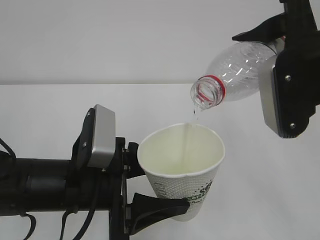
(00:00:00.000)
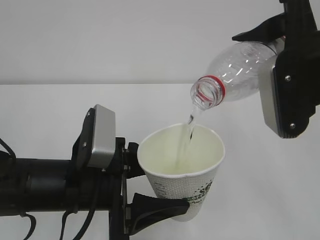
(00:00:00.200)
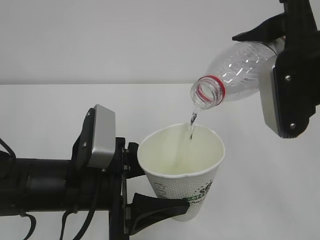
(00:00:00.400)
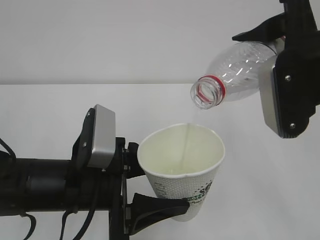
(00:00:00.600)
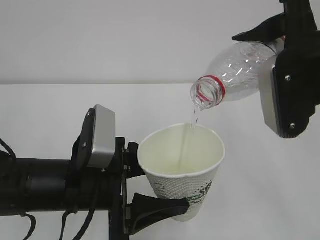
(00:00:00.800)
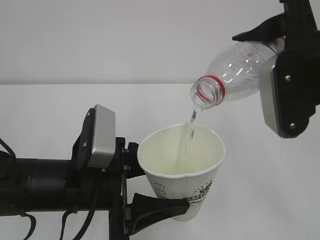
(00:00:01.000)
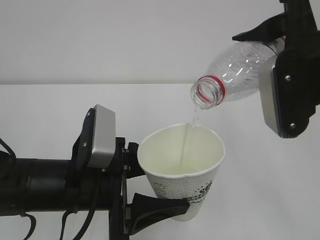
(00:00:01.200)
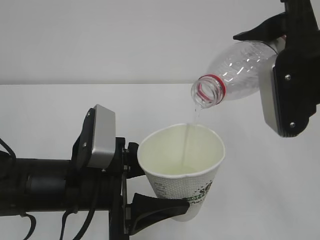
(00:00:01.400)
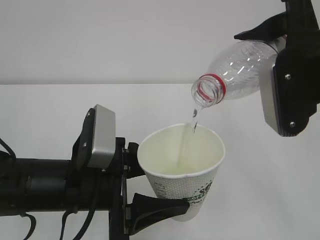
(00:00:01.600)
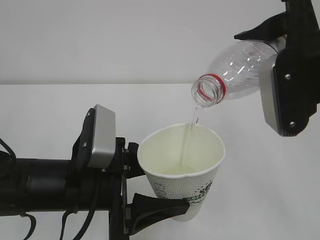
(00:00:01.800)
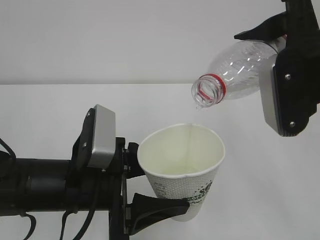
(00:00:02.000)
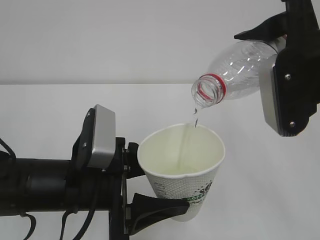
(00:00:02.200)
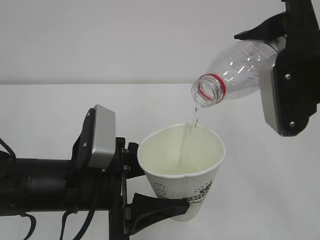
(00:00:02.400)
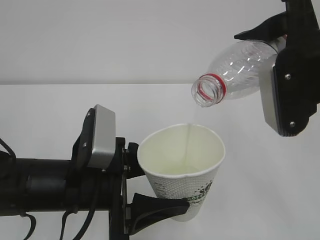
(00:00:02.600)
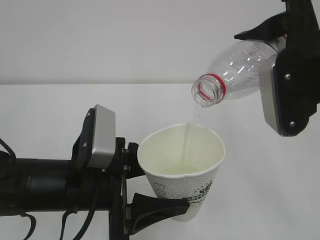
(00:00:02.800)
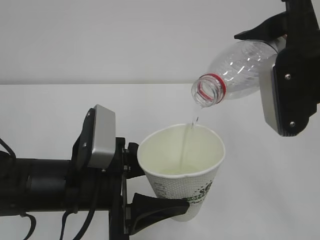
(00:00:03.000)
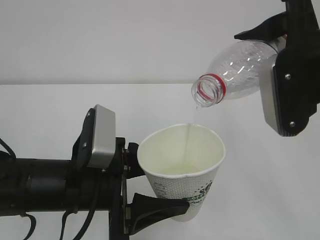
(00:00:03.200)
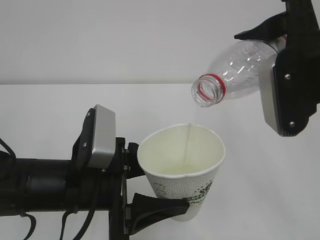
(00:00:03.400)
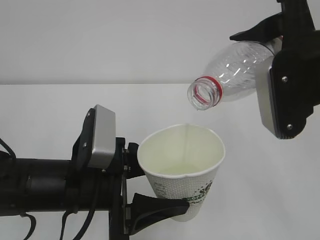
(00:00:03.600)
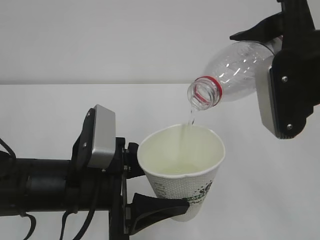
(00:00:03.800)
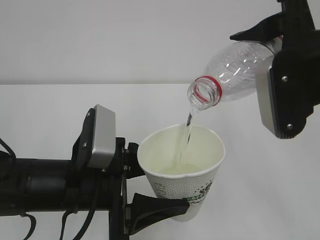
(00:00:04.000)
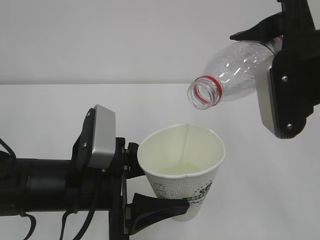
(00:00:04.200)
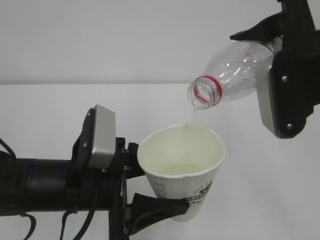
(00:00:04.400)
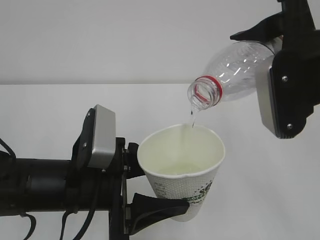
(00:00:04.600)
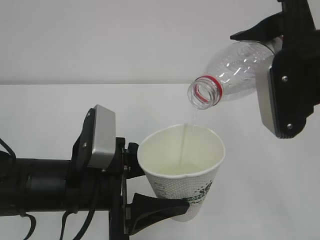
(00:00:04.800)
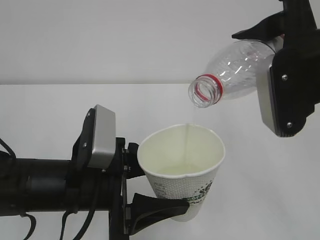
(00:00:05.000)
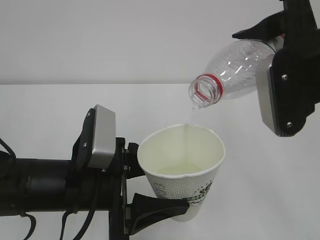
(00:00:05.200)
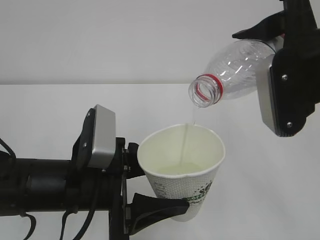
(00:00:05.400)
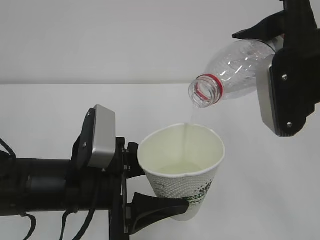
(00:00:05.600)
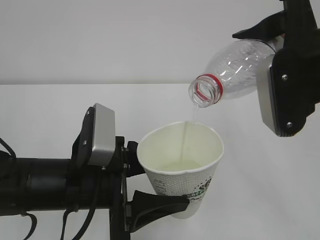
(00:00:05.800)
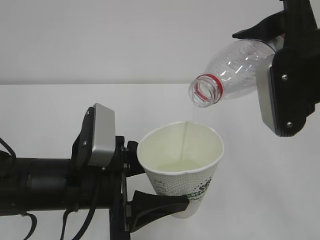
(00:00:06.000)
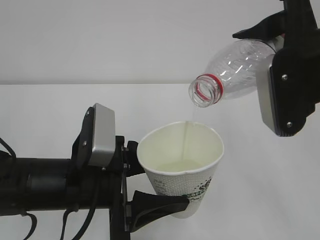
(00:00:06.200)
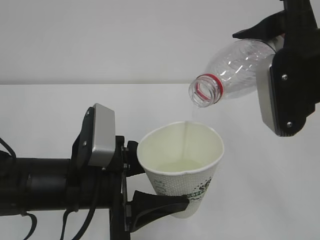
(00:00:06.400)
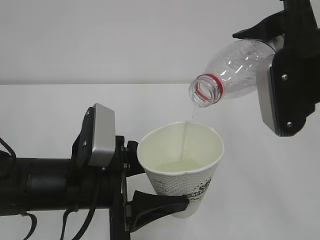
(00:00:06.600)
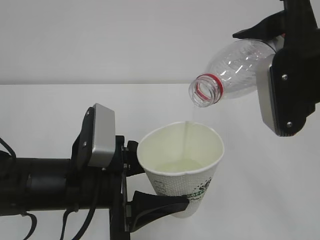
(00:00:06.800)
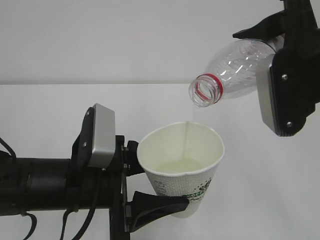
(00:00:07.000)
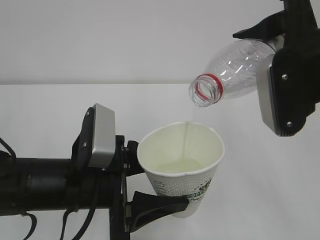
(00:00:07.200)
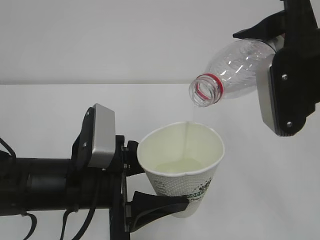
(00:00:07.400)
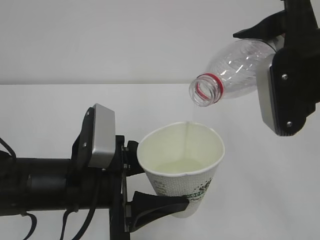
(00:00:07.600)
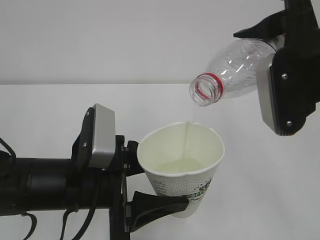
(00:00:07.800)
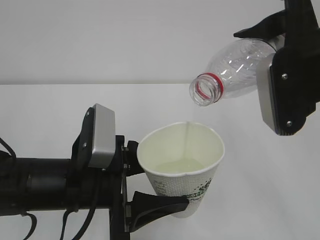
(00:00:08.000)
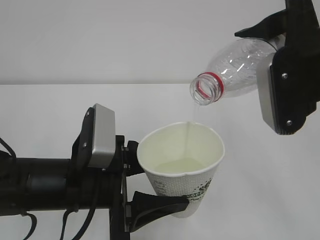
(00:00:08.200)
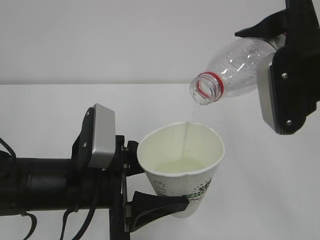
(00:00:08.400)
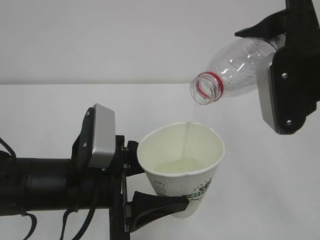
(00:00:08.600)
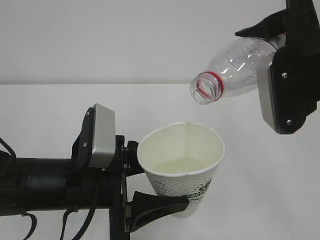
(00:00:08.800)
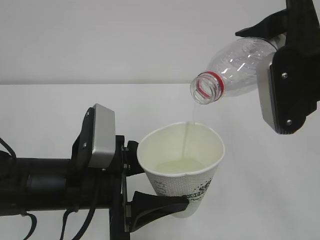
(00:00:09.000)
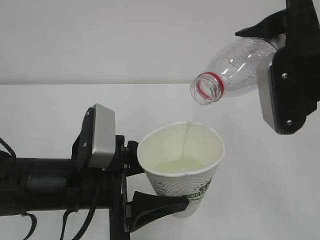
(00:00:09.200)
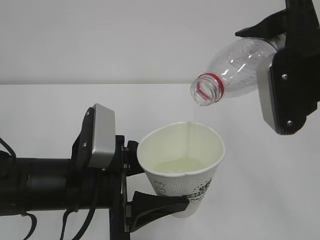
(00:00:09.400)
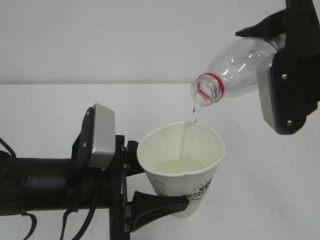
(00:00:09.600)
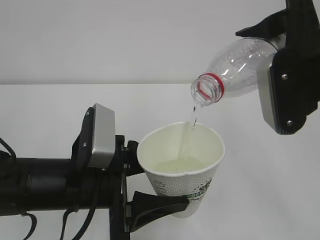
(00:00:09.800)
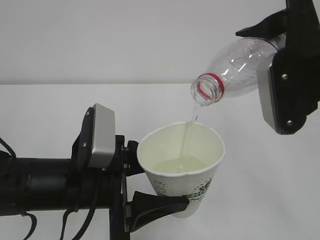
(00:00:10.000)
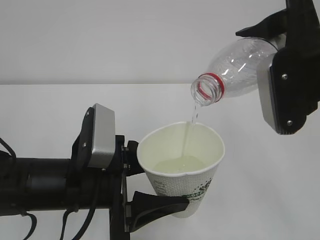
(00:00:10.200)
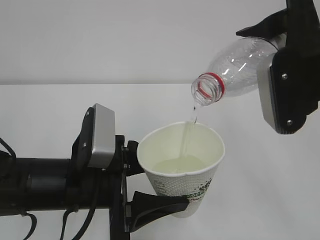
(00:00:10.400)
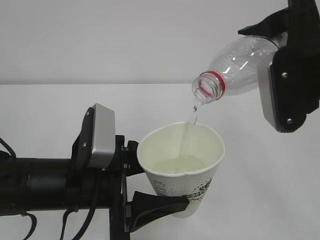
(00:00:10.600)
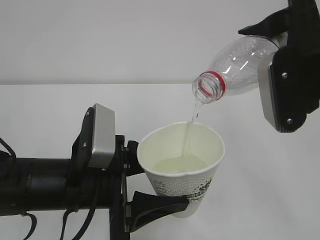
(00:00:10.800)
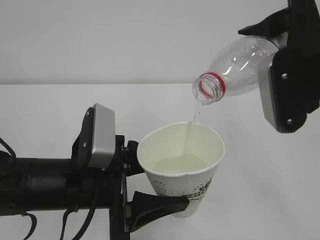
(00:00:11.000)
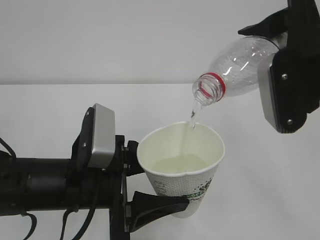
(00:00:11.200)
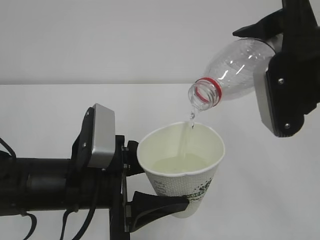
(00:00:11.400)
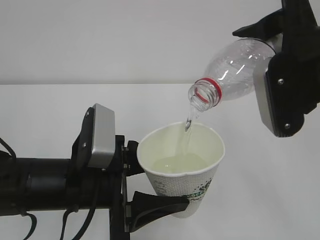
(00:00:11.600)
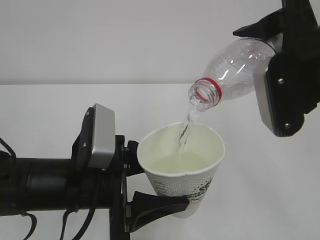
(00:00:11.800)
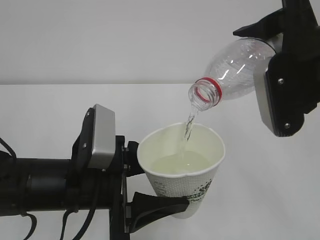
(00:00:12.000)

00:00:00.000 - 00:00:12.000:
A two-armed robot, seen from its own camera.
00:00:00.000 - 00:00:10.400: Both grippers stay about where they are.
00:00:10.400 - 00:00:12.000: Both grippers stay put.

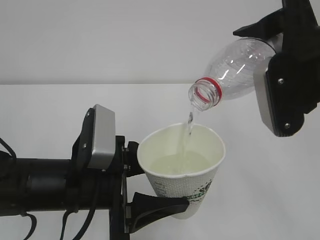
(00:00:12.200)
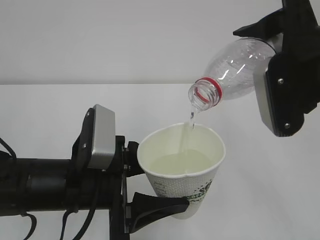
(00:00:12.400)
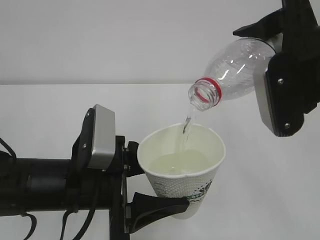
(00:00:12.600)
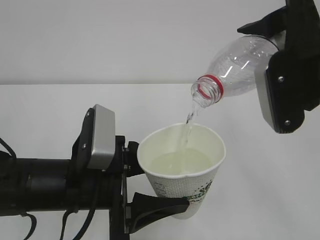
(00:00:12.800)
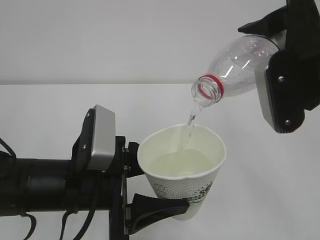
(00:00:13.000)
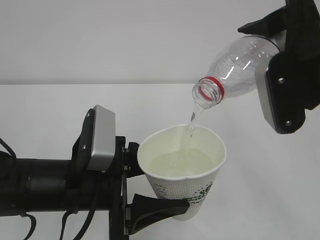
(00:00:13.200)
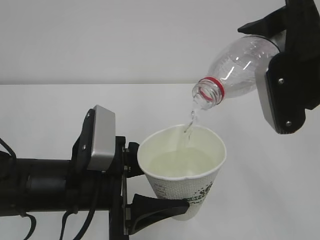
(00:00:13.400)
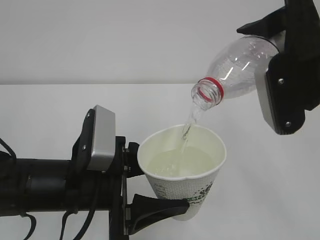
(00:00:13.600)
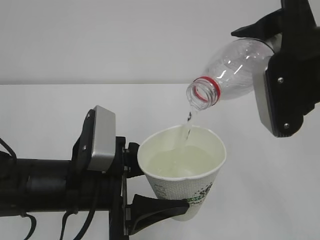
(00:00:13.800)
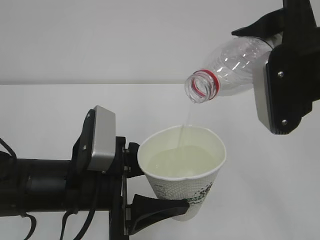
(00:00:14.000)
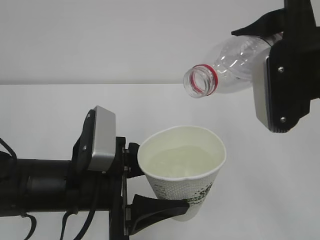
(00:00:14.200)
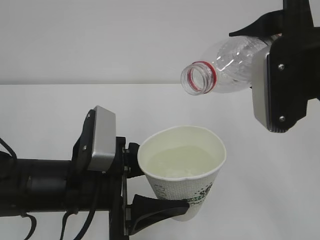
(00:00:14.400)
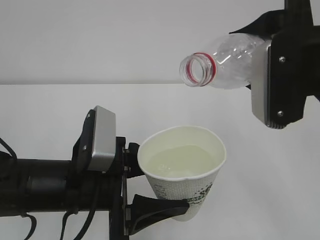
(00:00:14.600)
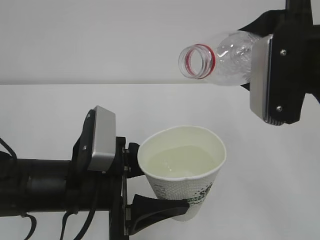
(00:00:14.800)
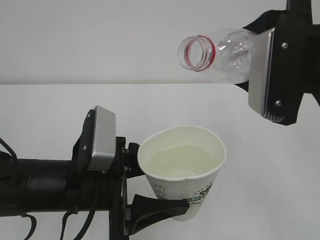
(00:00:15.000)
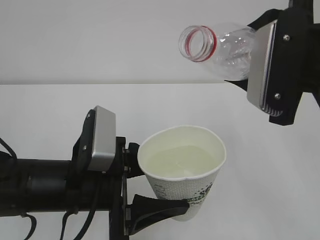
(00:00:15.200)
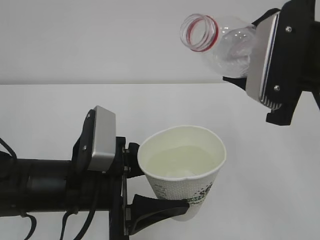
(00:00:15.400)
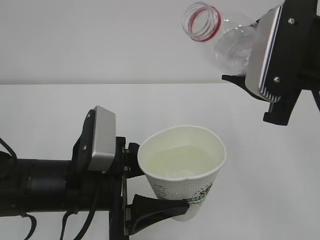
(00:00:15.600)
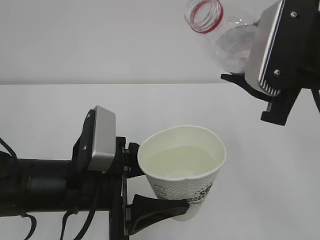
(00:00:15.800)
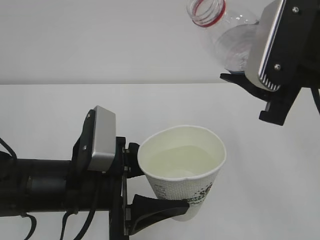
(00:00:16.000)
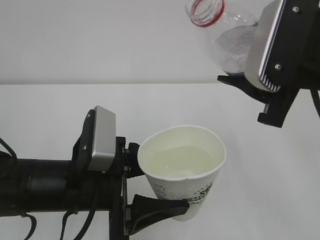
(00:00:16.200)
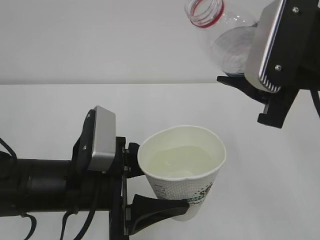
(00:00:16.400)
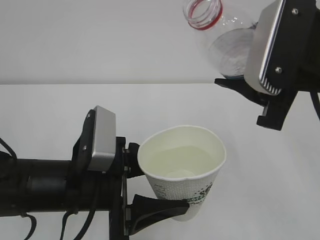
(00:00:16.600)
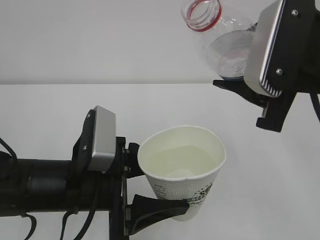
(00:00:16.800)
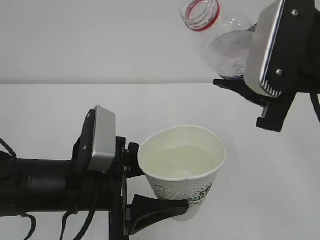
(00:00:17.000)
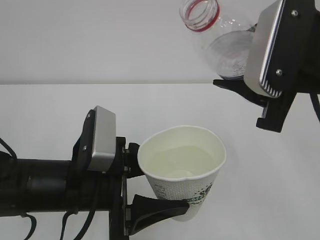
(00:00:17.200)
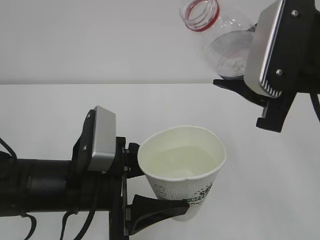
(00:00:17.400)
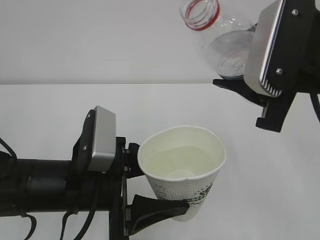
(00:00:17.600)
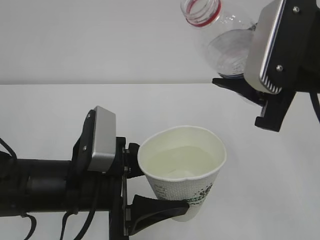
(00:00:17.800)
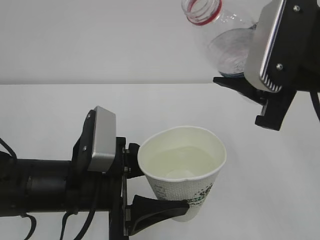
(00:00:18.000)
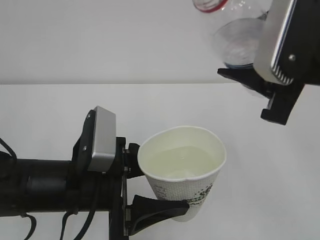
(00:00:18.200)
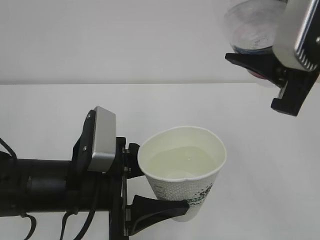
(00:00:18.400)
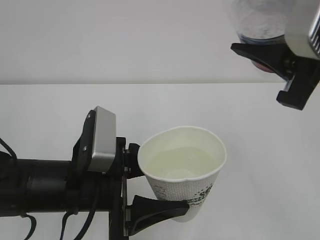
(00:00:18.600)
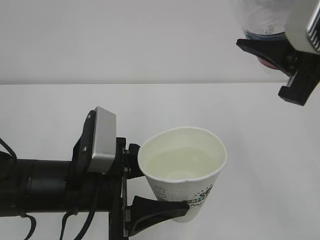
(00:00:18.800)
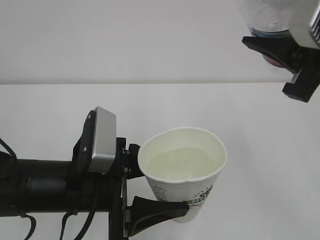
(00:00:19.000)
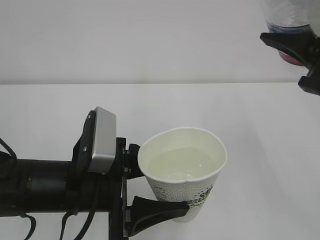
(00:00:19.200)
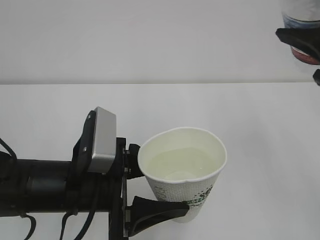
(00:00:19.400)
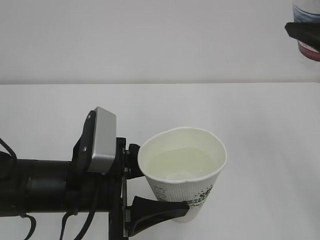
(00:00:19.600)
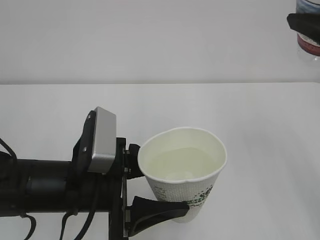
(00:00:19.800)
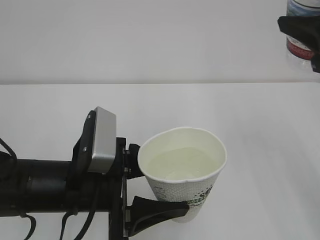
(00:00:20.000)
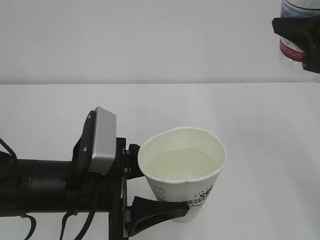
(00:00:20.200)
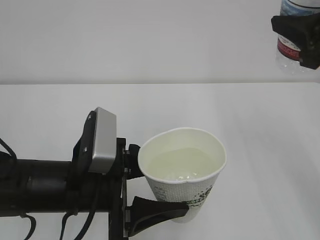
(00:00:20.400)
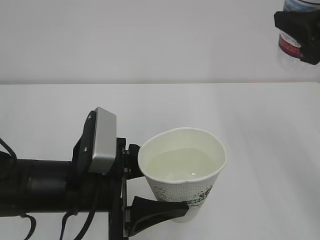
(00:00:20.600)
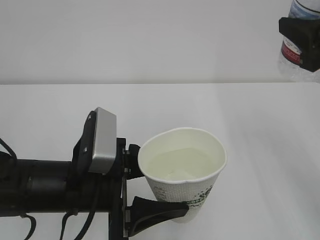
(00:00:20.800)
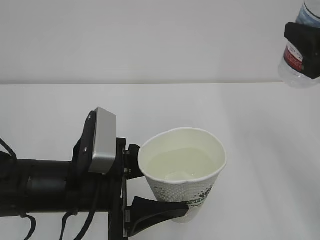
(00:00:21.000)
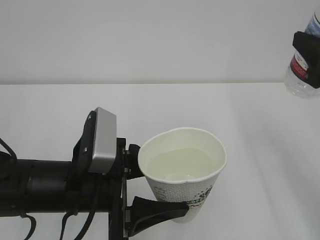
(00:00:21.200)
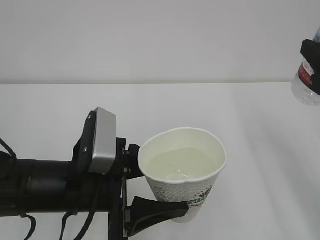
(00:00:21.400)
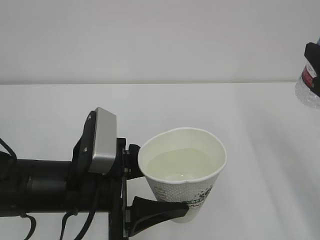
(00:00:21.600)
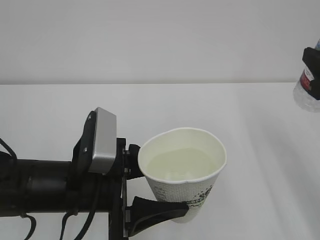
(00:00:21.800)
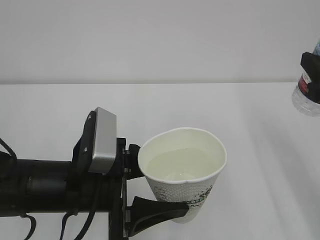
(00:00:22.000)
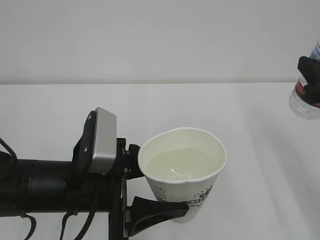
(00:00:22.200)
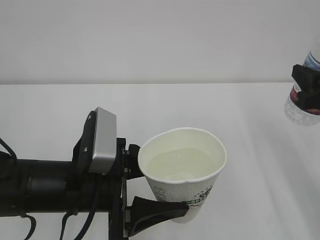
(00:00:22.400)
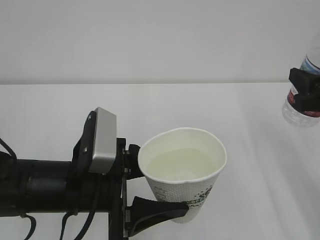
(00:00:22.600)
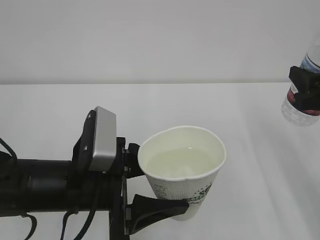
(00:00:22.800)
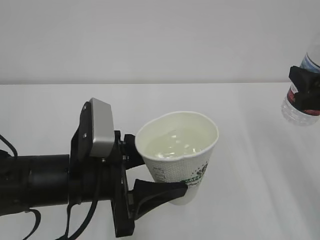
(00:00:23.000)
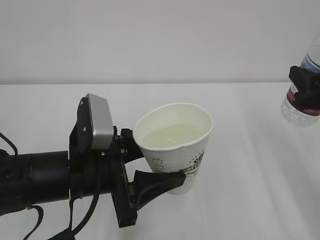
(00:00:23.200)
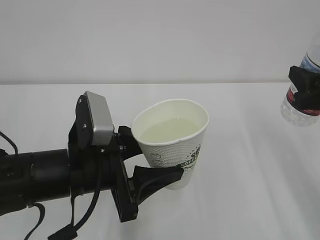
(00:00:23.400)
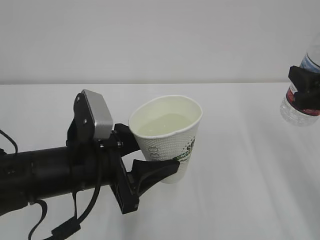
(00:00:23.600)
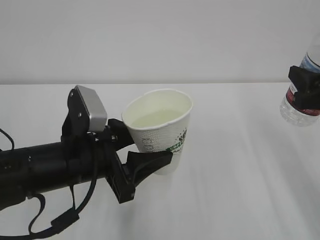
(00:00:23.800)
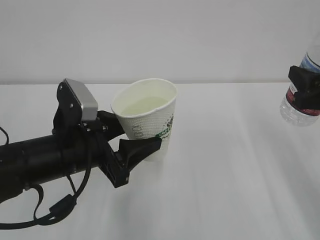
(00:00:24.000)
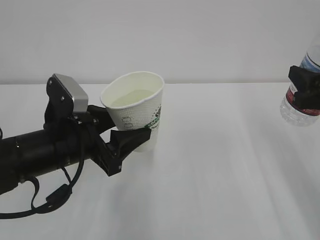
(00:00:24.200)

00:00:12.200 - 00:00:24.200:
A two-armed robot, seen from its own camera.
00:00:12.200 - 00:00:13.800: The two grippers keep their place.
00:00:15.200 - 00:00:16.600: There are only small adjustments of the grippers.
00:00:16.600 - 00:00:18.200: Neither gripper changes place.
00:00:18.200 - 00:00:19.800: The right gripper goes approximately 10 cm to the right.
00:00:19.800 - 00:00:21.200: The right gripper goes about 5 cm downward.
00:00:21.200 - 00:00:22.600: The right gripper moves downward, about 5 cm.
00:00:22.600 - 00:00:24.200: The left gripper moves forward, roughly 5 cm.
